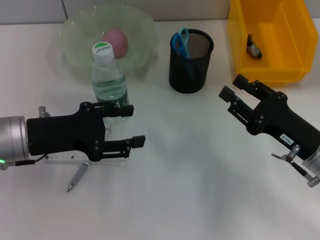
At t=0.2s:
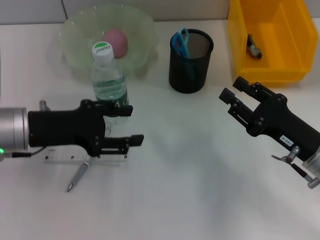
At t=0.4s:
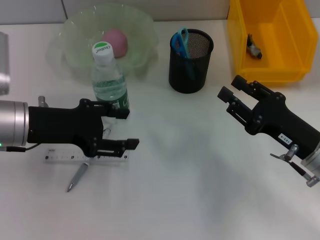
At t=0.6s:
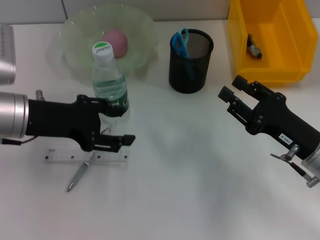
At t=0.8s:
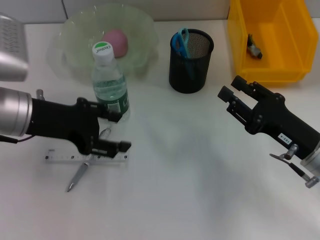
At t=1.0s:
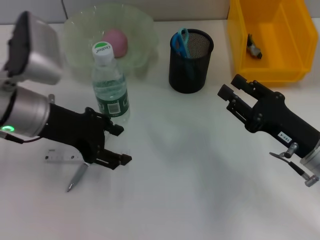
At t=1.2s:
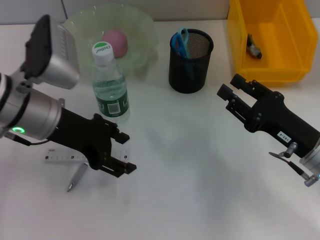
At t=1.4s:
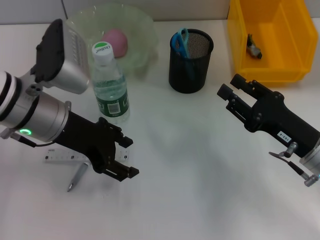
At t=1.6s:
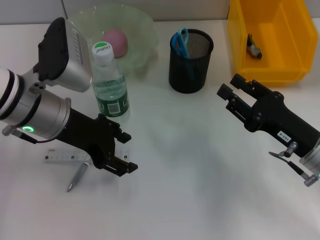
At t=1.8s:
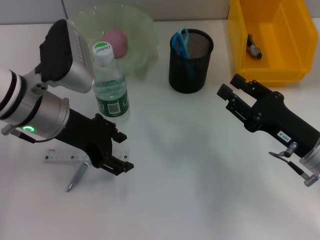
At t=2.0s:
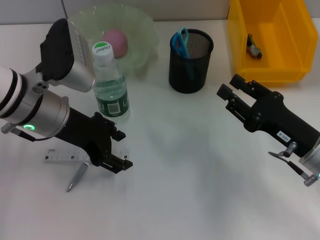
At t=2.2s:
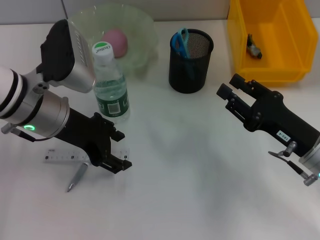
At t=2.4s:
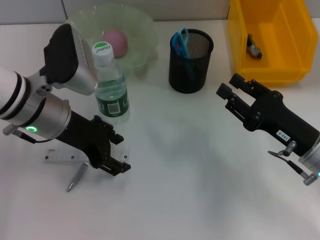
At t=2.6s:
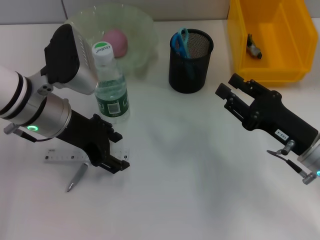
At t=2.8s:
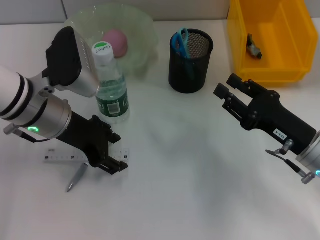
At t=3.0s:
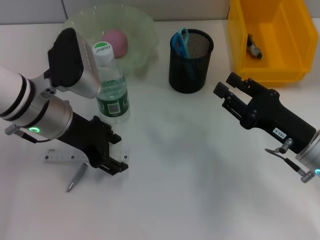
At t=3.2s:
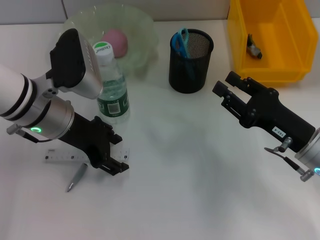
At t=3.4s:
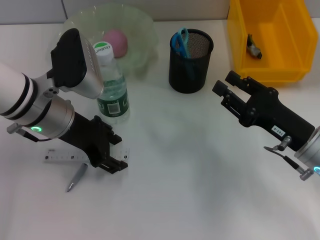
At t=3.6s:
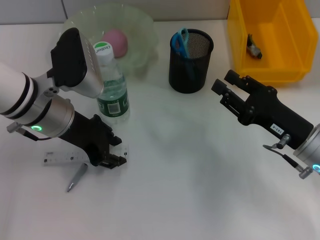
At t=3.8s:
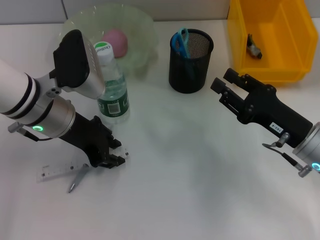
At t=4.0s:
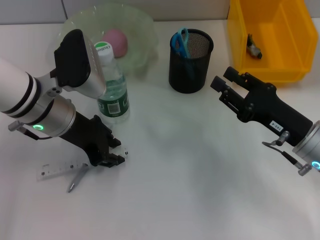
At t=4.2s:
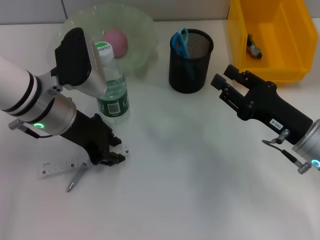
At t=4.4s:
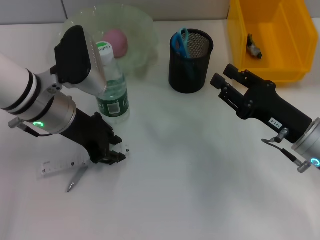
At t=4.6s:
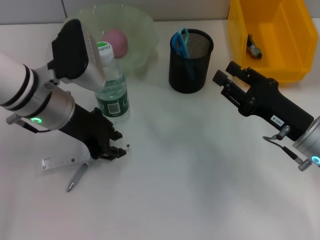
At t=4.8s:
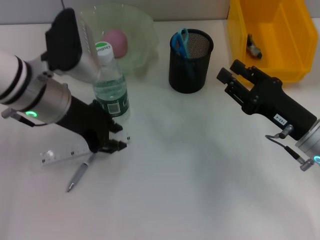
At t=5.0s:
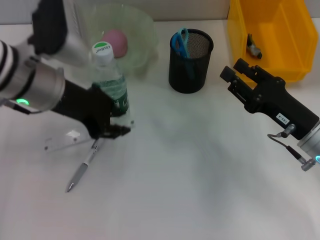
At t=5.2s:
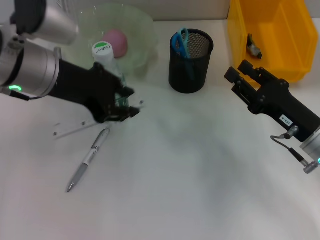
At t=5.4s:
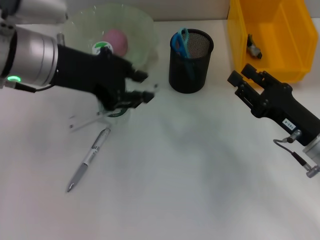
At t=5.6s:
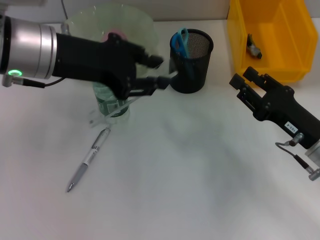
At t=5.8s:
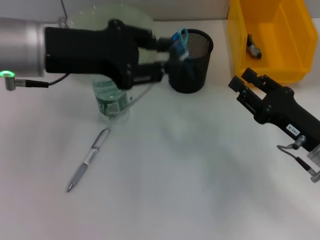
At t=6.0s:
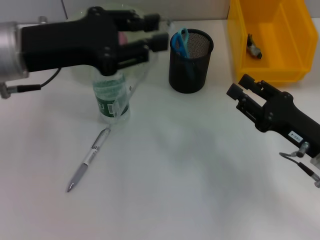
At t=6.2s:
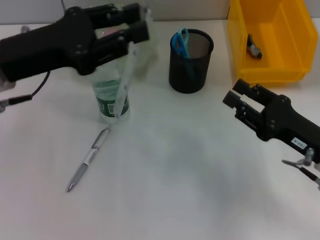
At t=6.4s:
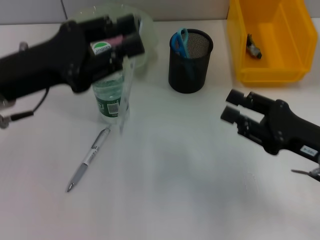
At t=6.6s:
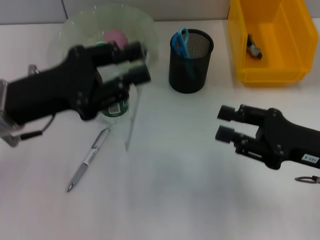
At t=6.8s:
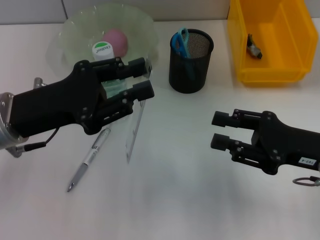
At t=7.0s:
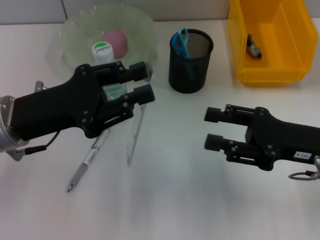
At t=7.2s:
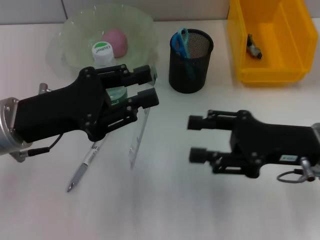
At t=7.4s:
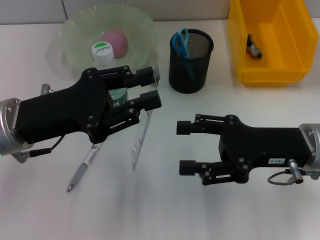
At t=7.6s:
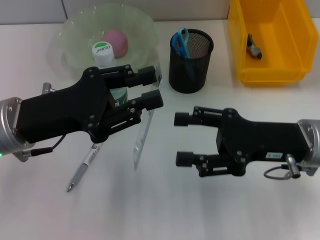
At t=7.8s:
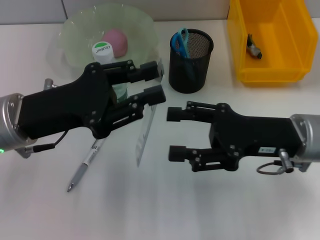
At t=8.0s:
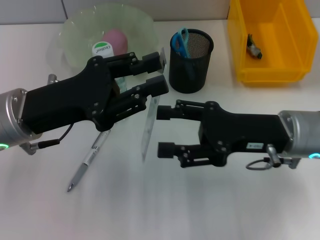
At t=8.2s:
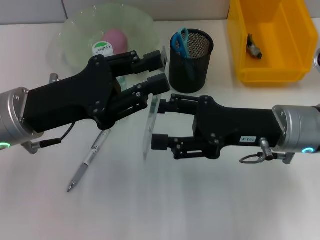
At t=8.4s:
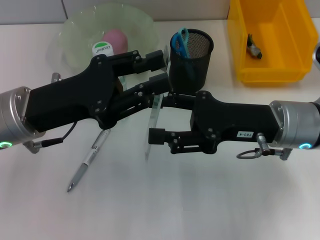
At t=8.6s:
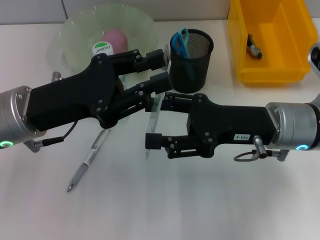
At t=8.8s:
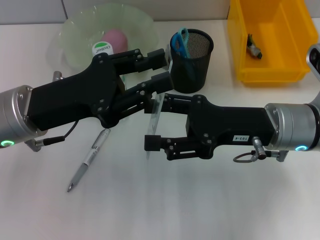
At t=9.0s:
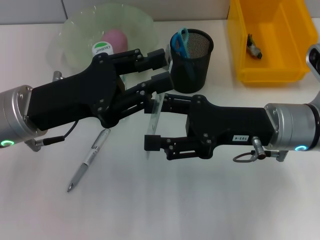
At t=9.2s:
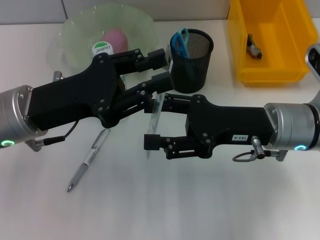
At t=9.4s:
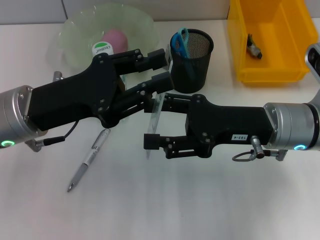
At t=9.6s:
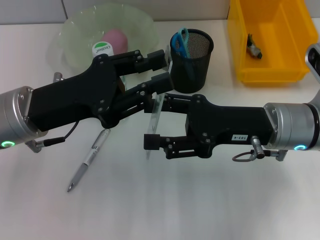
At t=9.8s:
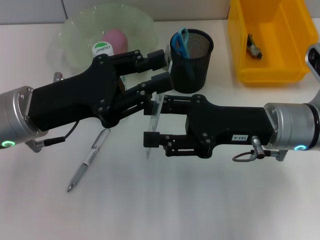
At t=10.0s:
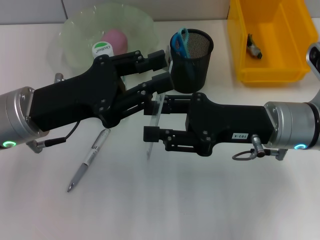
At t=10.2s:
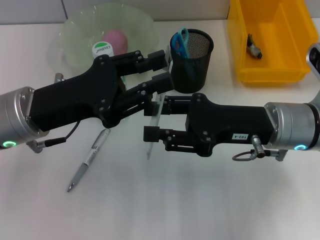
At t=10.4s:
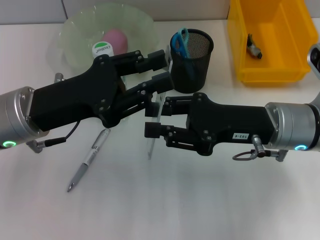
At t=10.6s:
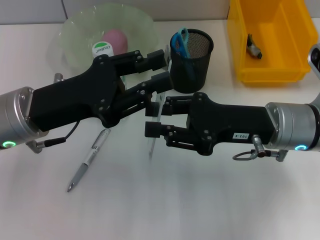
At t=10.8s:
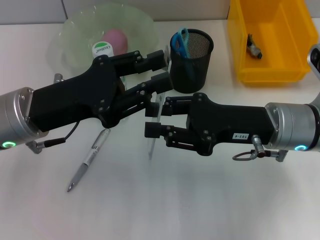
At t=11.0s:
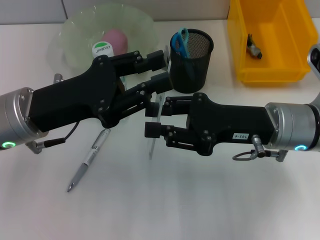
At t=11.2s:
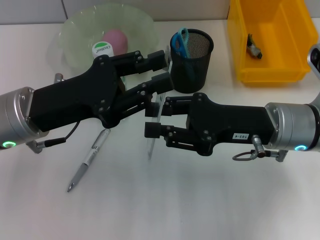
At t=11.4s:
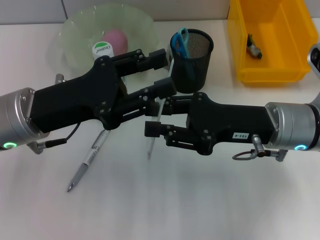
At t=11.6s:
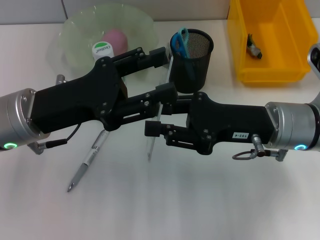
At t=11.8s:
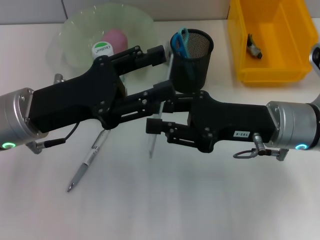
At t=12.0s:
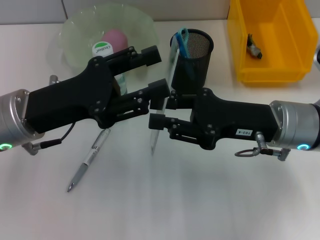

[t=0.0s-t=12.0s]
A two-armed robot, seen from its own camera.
Step, t=0.0s to t=3.8s: Grab the ruler with the left hand.
Step, t=4.0s to t=11.8s: Pass the ruler from the left hand to the right hand.
t=0.0s to t=1.6s: The left gripper heads to the right, covering about 5 cm.
t=1.6s to t=3.0s: The grippers move only a little.
t=3.0s to t=4.4s: The left gripper closes up.
t=4.4s to t=6.0s: The left gripper goes approximately 10 cm upward.
t=6.0s to t=7.6s: The right gripper is displaced upward by approximately 5 cm, and opens its fingers; the left gripper moves downward, approximately 5 cm.
t=9.0s to t=10.4s: The right gripper closes up.
t=10.4s to t=12.0s: The left gripper opens its fingers.

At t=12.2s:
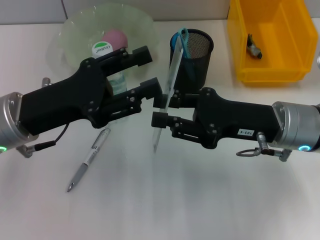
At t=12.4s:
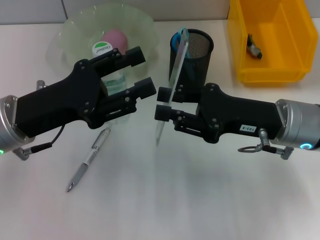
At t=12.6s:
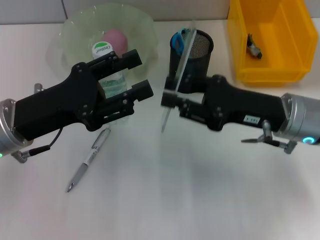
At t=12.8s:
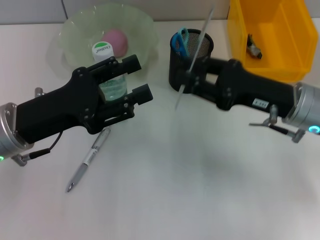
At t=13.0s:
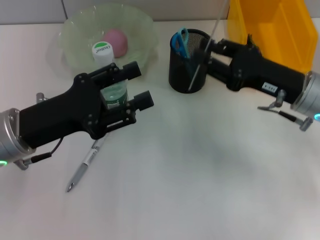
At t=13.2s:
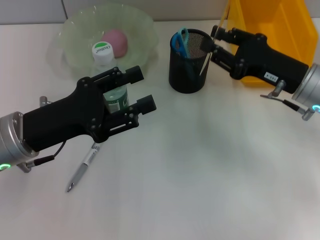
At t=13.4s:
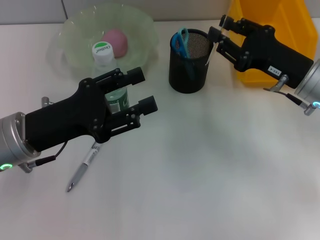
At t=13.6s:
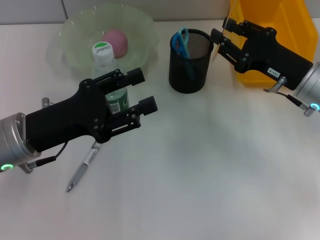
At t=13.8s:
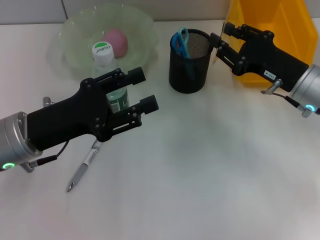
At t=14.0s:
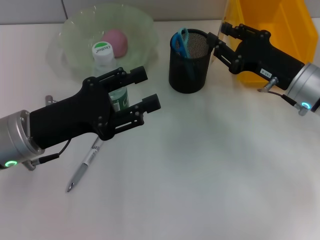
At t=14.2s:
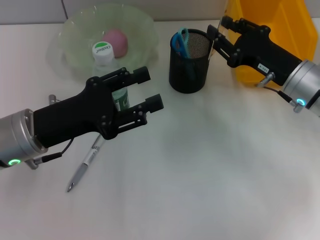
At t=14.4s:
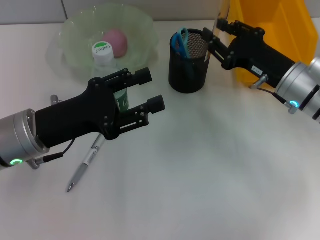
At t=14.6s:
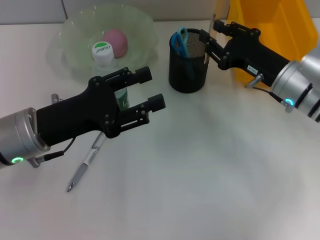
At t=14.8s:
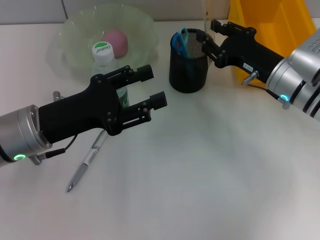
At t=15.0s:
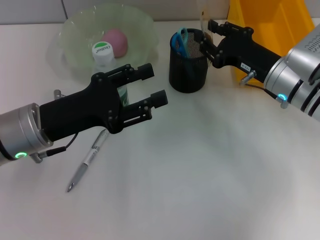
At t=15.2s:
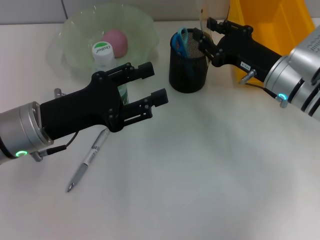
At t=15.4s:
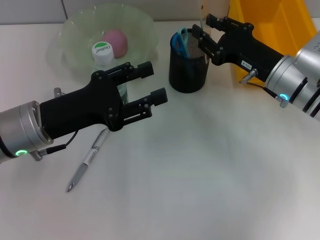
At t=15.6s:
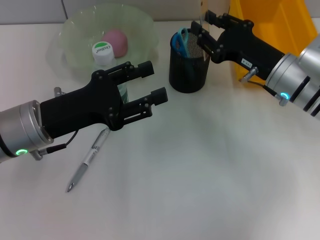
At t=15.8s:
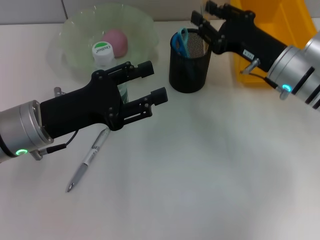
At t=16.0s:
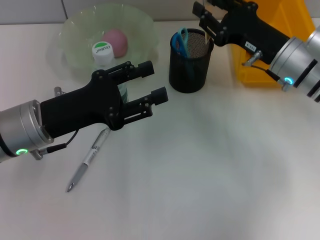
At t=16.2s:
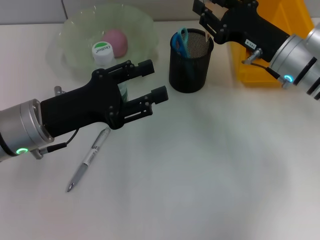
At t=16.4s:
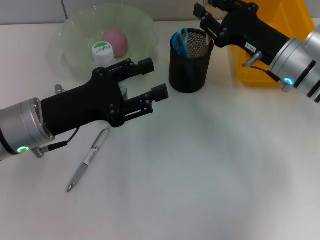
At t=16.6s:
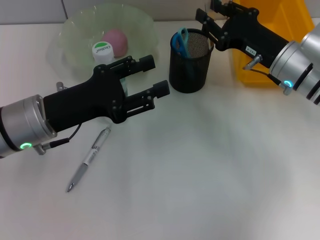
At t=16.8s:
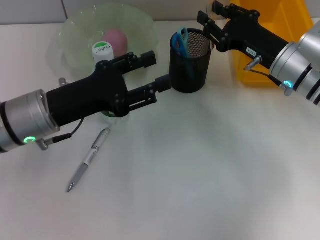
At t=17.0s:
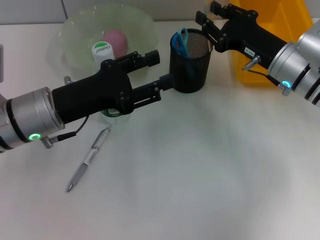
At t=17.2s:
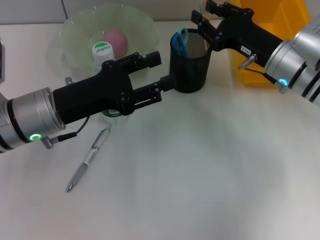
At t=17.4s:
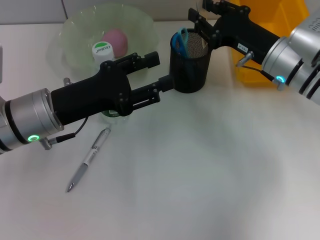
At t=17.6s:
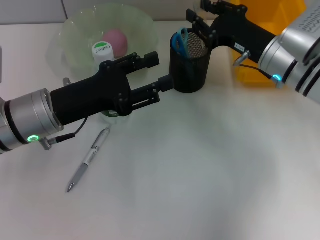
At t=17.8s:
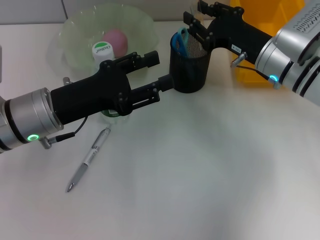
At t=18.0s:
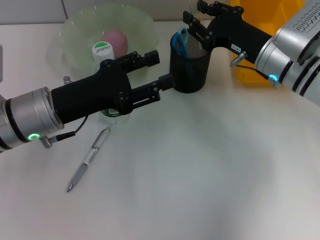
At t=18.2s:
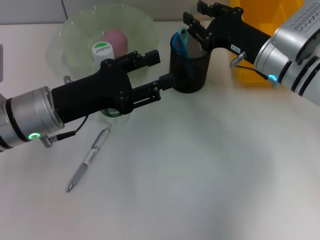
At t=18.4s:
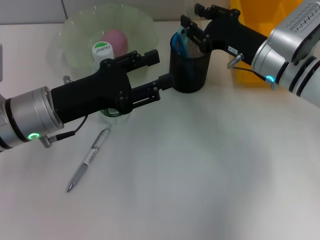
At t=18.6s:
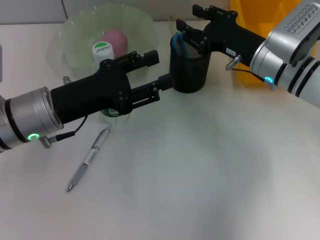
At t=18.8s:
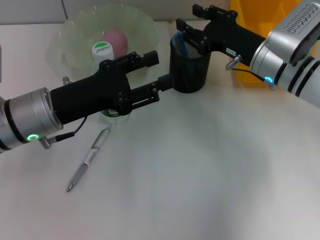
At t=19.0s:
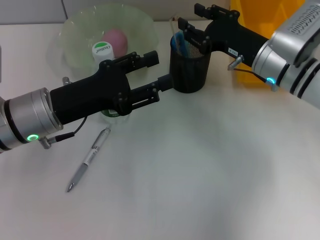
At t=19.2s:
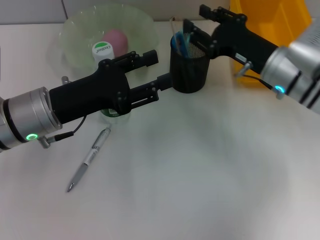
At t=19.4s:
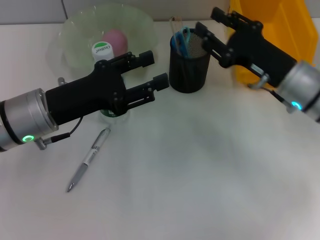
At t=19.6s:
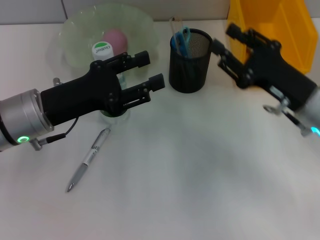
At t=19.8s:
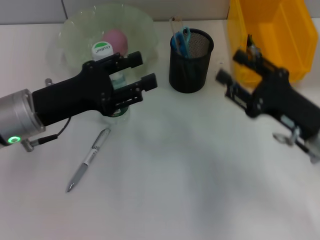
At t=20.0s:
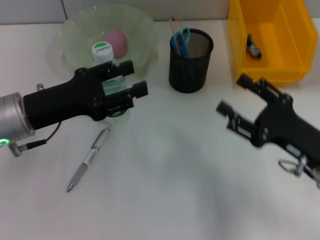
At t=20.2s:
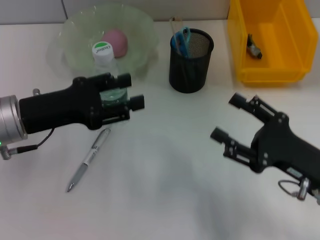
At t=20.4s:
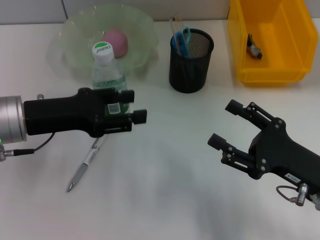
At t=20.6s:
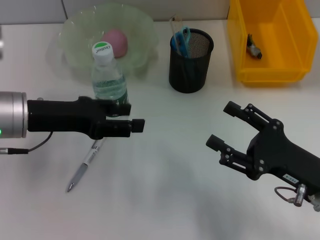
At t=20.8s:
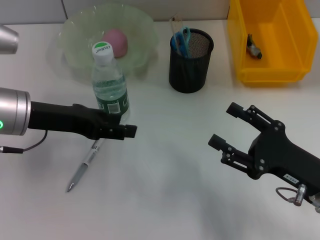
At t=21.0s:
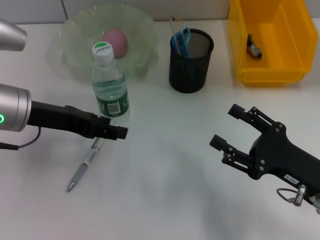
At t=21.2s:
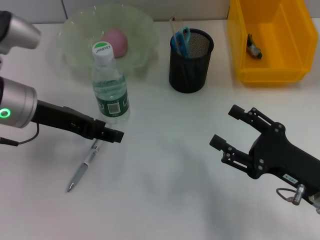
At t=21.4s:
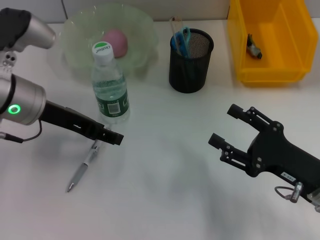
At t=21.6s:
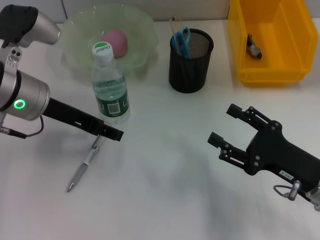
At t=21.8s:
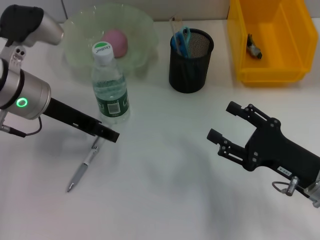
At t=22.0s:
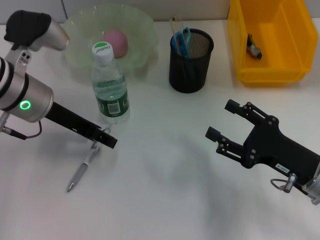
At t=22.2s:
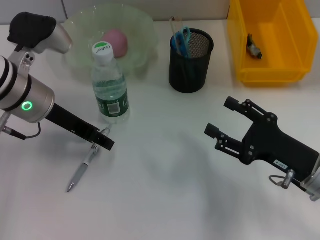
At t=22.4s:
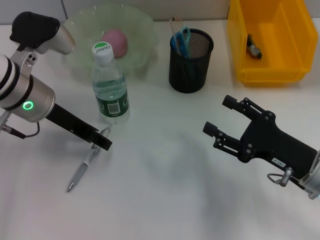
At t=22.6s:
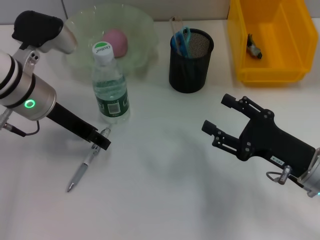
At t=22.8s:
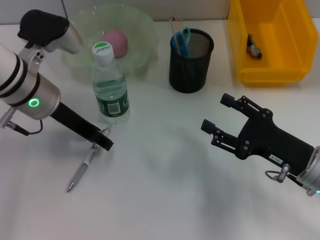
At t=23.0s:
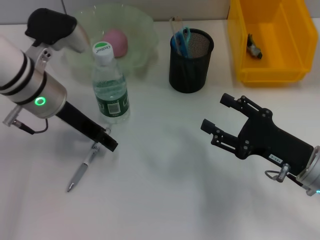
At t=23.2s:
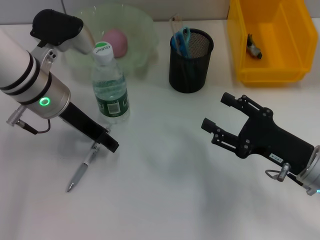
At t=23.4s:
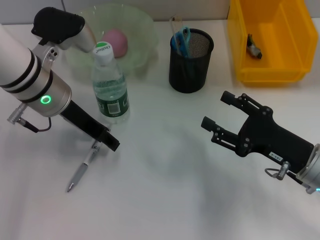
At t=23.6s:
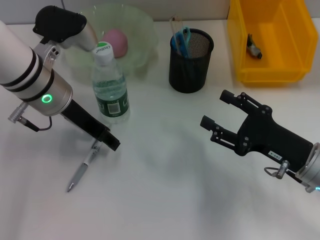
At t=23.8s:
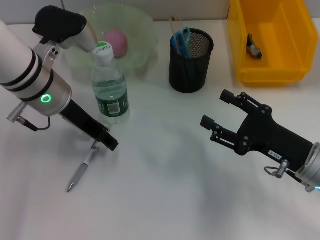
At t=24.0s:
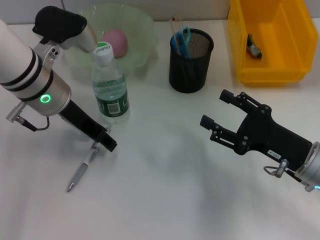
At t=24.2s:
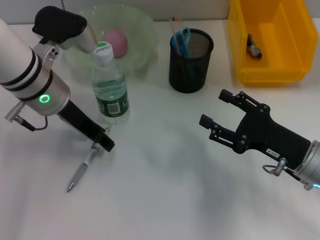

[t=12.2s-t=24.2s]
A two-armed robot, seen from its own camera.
Step, t=12.2s to t=18.8s: Place the ruler into the pen holder with the right hand.
t=12.2s to t=13.8s: The right gripper travels forward by some 5 cm.
t=13.8s to t=16.6s: The grippers move only a little.
t=16.6s to t=18.2s: There are only small adjustments of the grippers.
t=18.2s to t=19.8s: The right gripper goes approximately 15 cm backward and to the right.
t=19.8s to t=21.2s: The right gripper shifts some 5 cm backward, while the left gripper shifts by roughly 5 cm.
t=21.2s to t=22.6s: The grippers move only a little.
t=22.6s to t=24.2s: The grippers move only a little.
